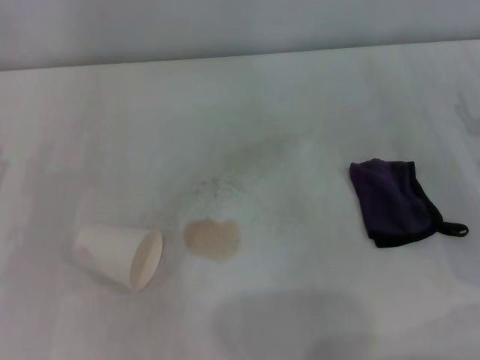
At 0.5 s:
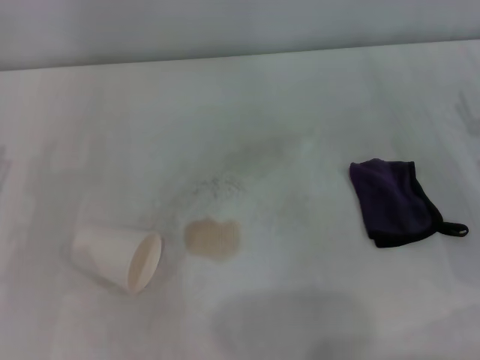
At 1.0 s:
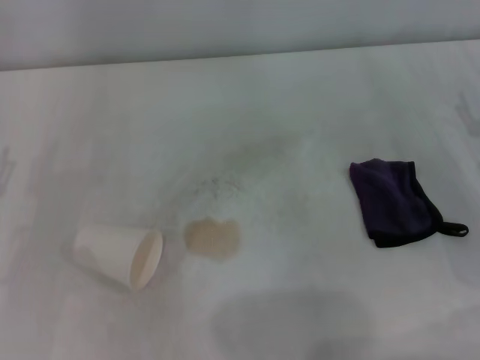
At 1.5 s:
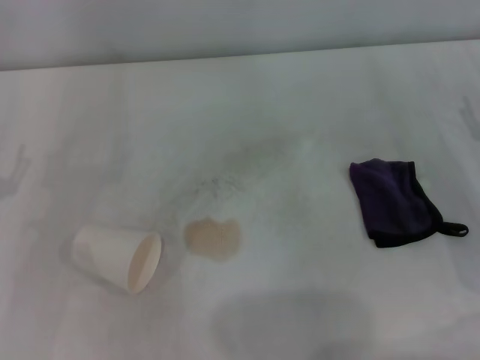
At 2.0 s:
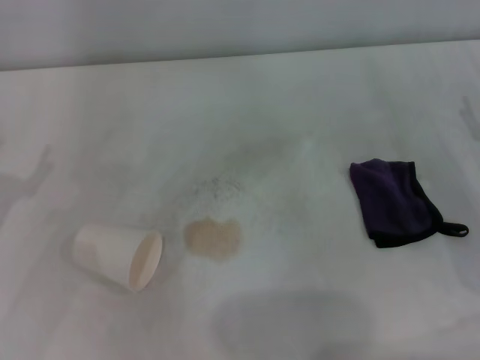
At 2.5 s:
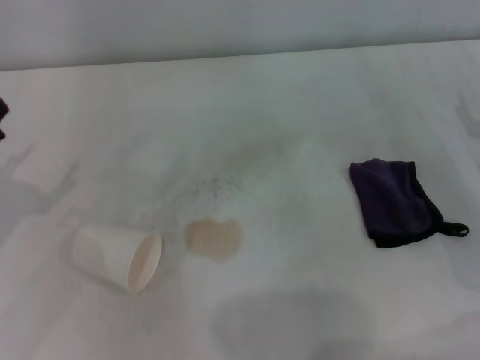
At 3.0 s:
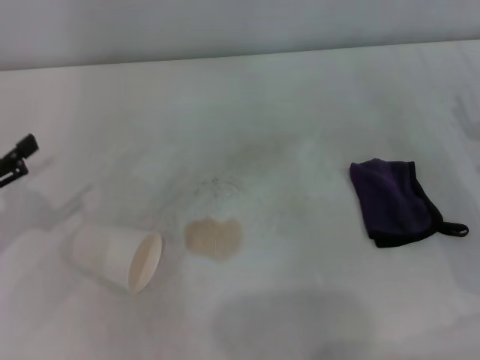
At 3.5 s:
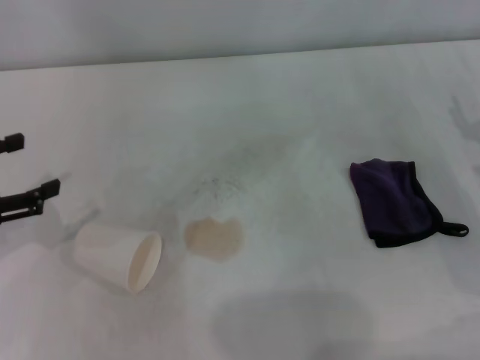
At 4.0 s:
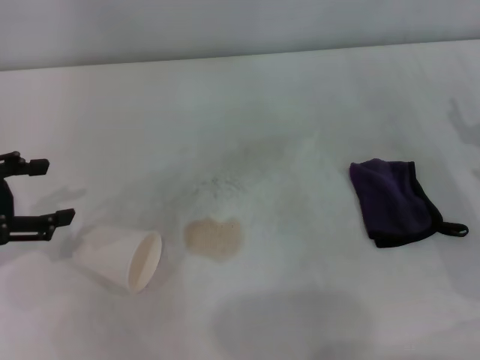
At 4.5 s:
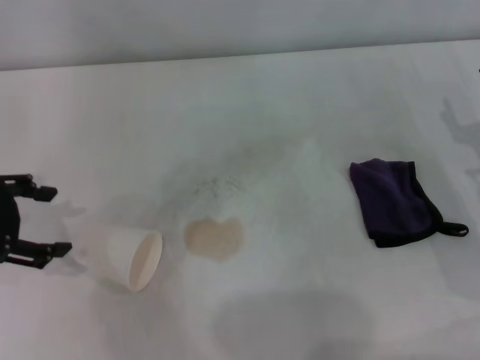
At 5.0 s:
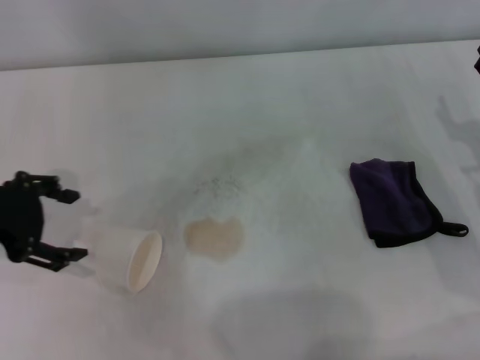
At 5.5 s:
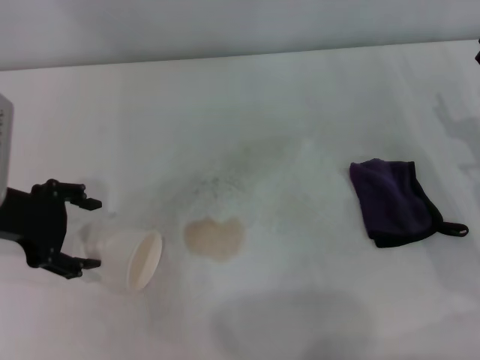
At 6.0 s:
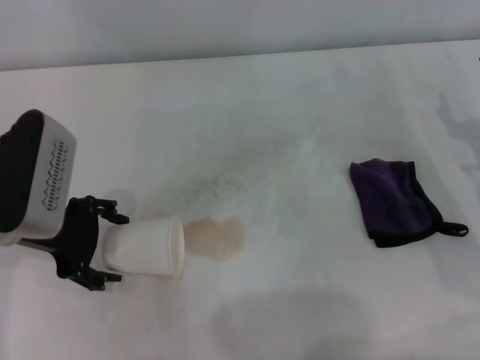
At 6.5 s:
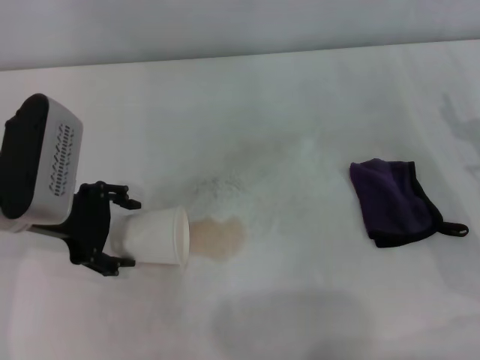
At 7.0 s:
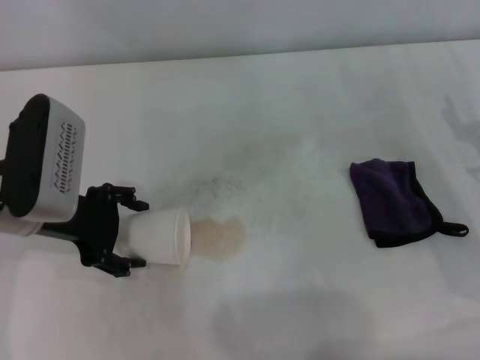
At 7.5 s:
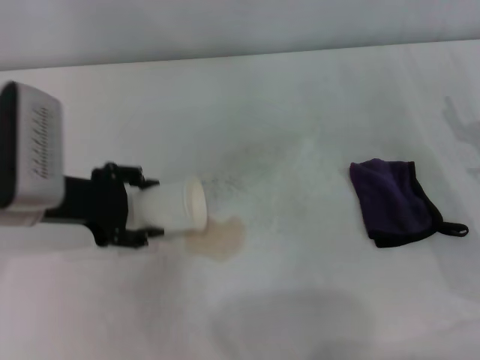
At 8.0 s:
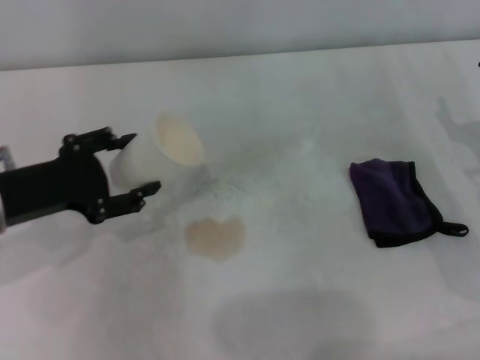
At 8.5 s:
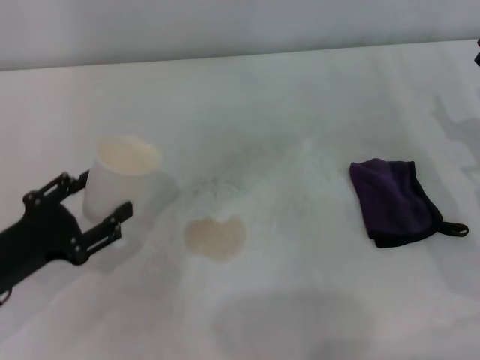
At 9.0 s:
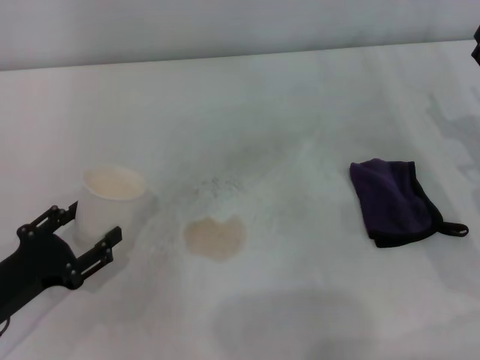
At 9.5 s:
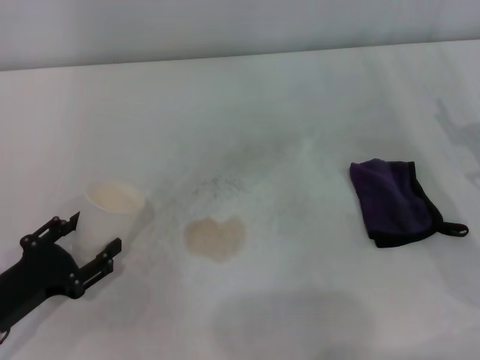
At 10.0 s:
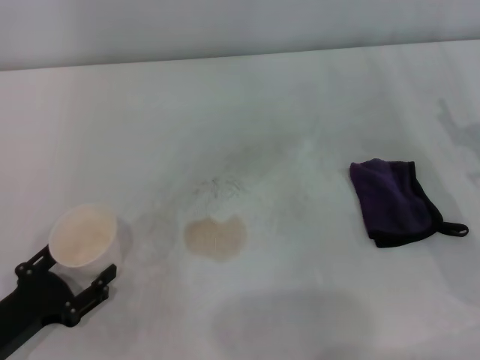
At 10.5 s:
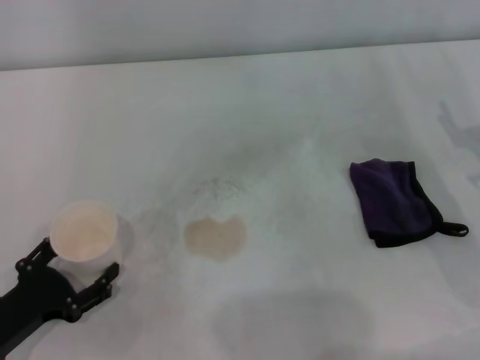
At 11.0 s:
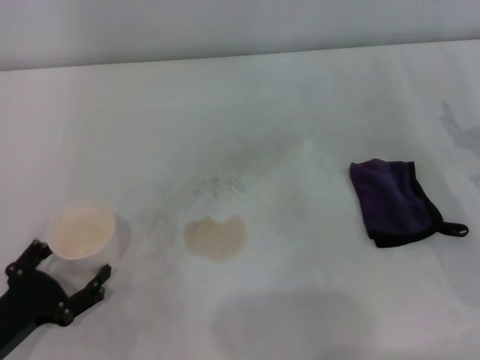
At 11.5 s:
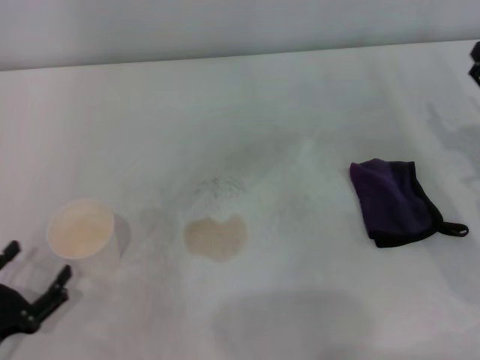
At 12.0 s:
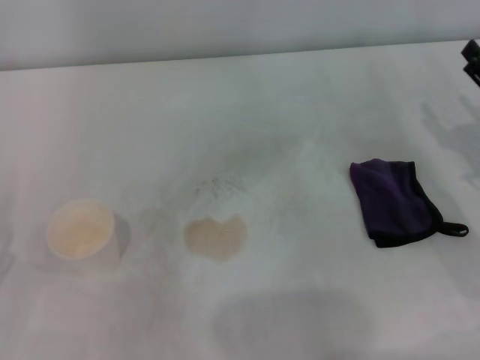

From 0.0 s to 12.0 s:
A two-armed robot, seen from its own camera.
Step, from 0.0 s to 6.0 s: Grasp the paper cup with the left gripper.
Step, from 6.5 s to 10.5 s: Stand the paper cup upright with the left gripper.
From 2.0 s to 4.0 s: The left gripper shifts about 5 cm upward.
From 4.0 s to 6.0 s: The left gripper moves to the right, some 10 cm.
From 6.0 s to 8.0 s: The left gripper closes its fingers.
From 8.0 s to 10.0 s: The left gripper travels downward and backward by roughly 15 cm.
From 10.0 s to 12.0 s: The left gripper changes place by about 5 cm, and opens up.

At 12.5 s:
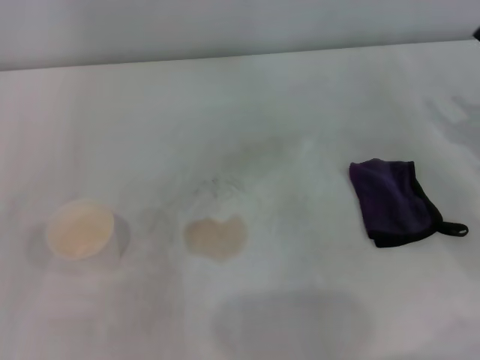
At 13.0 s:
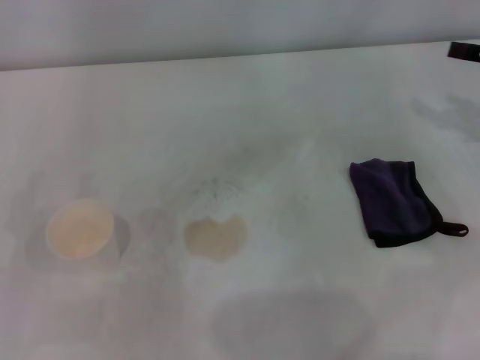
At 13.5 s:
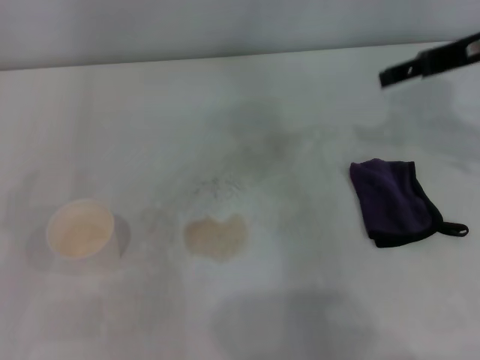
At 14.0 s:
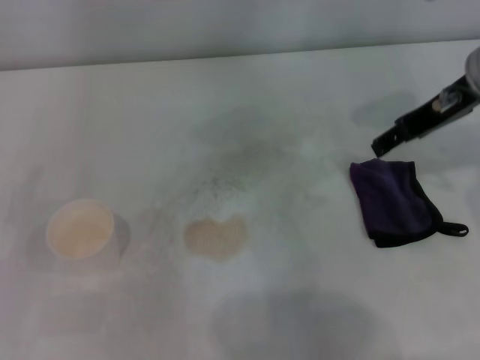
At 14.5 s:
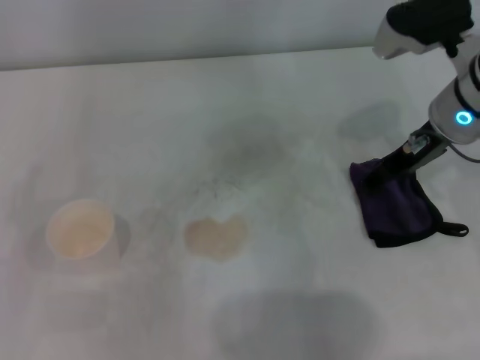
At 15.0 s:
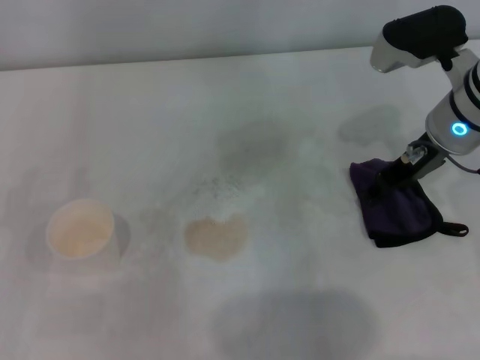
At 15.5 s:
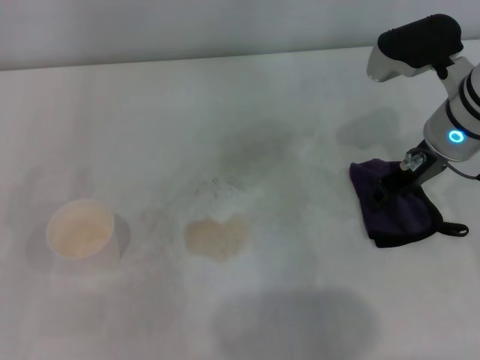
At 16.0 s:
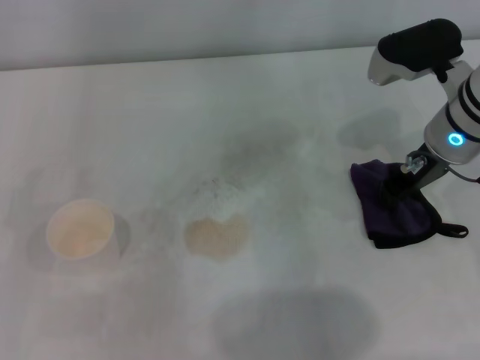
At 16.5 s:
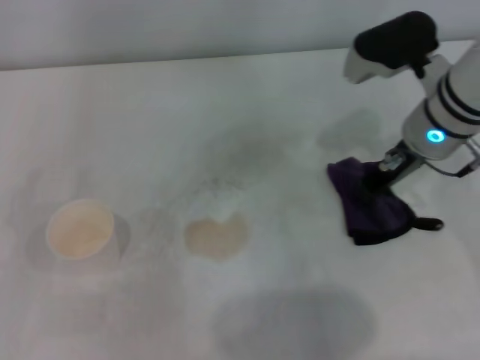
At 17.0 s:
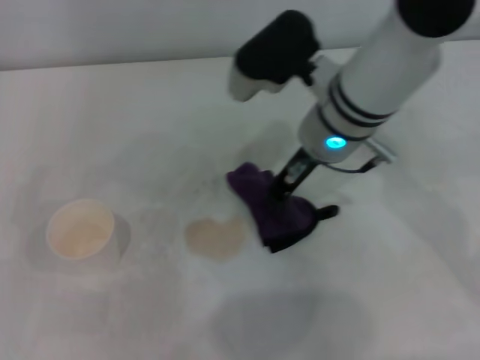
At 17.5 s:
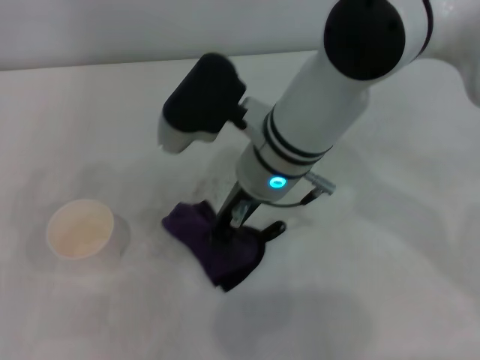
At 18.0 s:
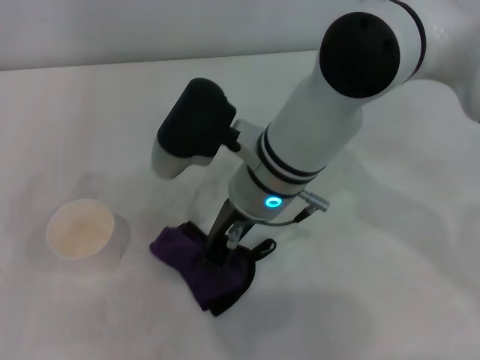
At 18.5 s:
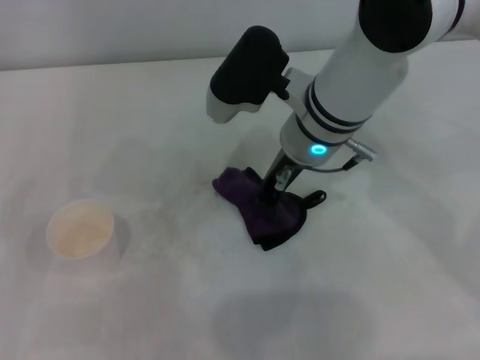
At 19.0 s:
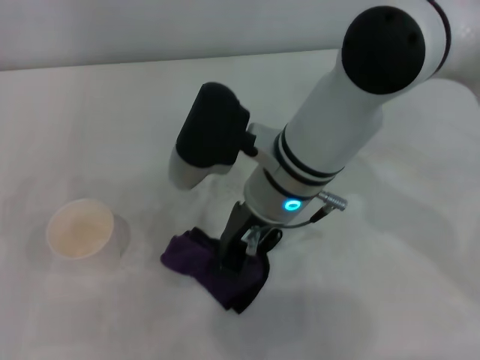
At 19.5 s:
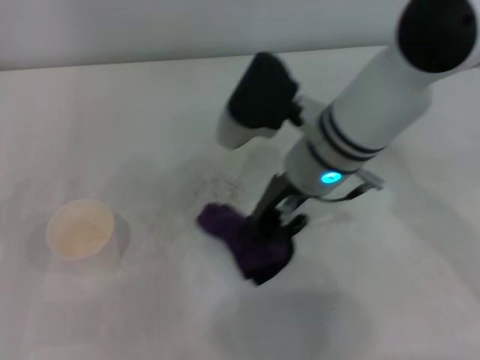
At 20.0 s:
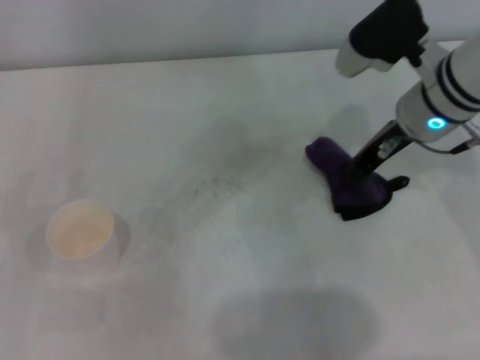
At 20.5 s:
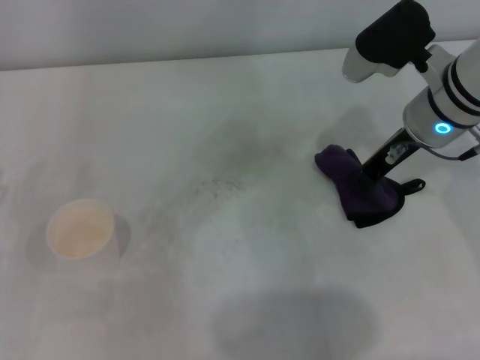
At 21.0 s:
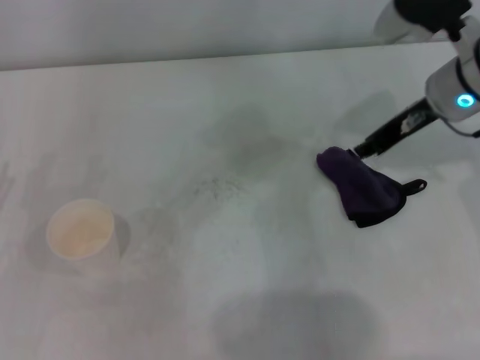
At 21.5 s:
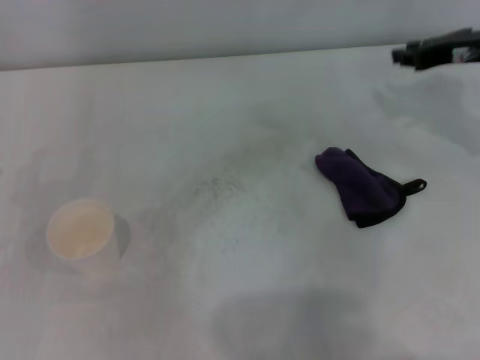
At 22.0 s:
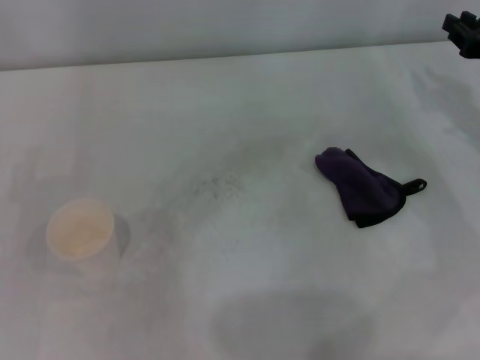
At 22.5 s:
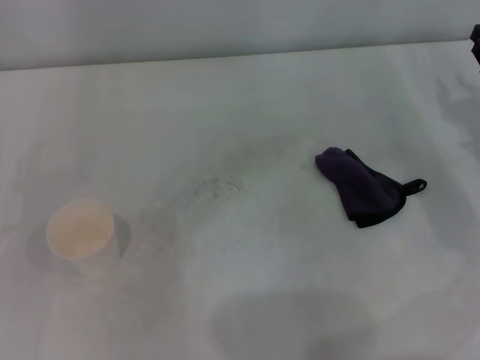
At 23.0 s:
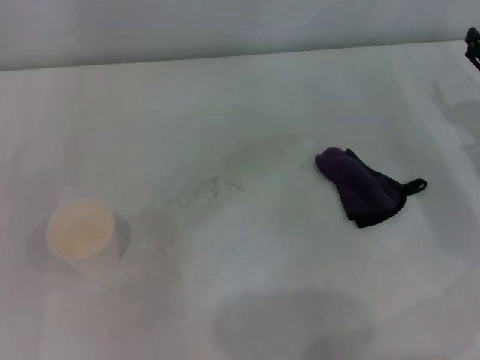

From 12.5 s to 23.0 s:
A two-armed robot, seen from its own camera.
Step, from 12.5 s to 16.0 s: Grasp the rag with the right gripper.
Step, from 16.5 s to 19.5 s: Wipe the stains off the table with the right gripper.
Step, from 20.0 s to 20.5 s: Place the rag on the table with the right gripper.
From 12.5 s to 14.5 s: The right gripper heads to the left, forward and upward, covering about 20 cm.
From 14.5 s to 16.5 s: The right gripper closes up.
From 16.5 s to 19.0 s: The right gripper heads to the left, covering roughly 15 cm.
From 19.0 s to 21.0 s: The right gripper heads to the right, covering some 20 cm.
From 21.0 s to 23.0 s: The right gripper shifts roughly 15 cm to the right, downward and backward, and opens up.

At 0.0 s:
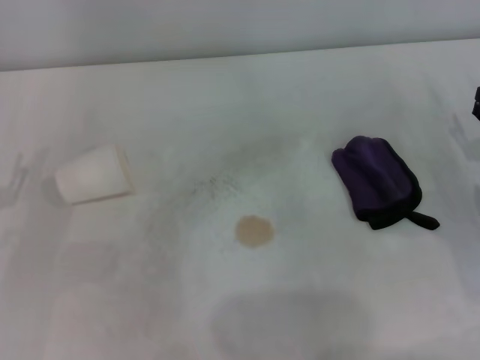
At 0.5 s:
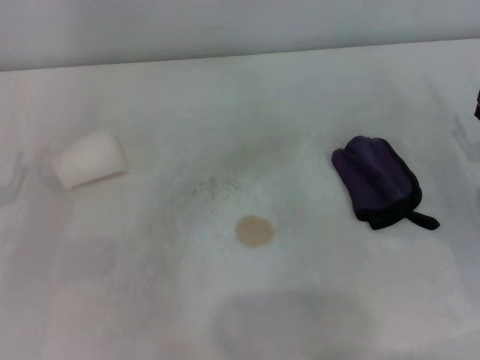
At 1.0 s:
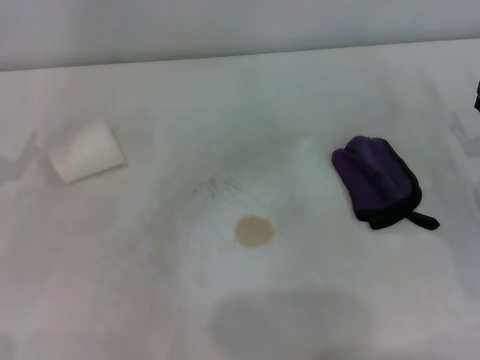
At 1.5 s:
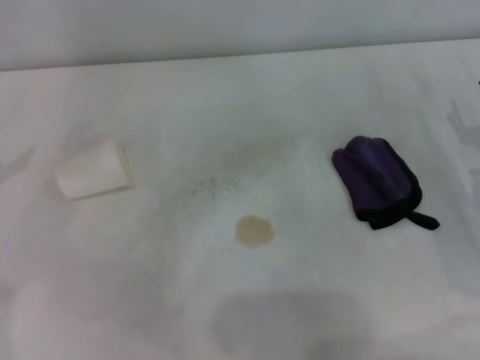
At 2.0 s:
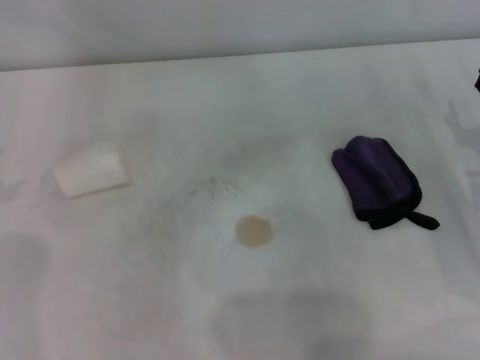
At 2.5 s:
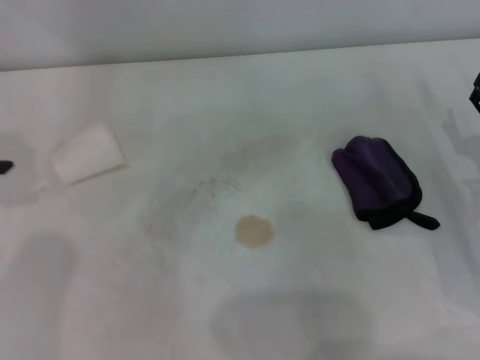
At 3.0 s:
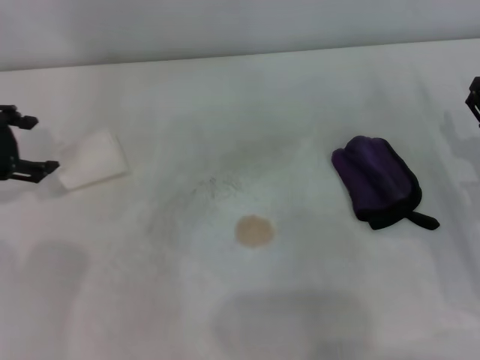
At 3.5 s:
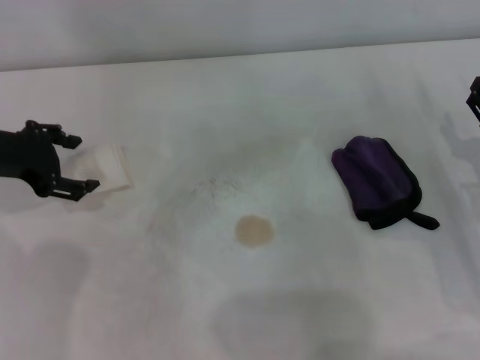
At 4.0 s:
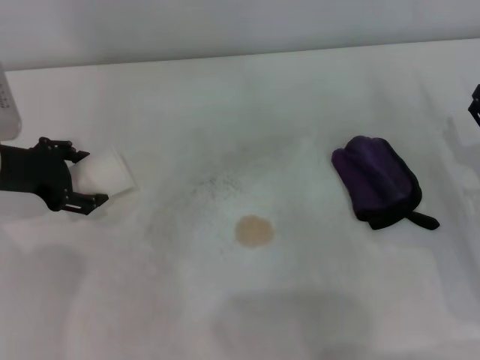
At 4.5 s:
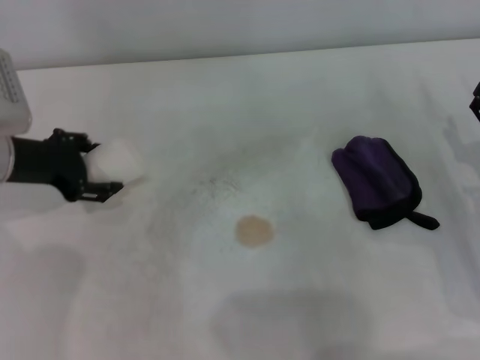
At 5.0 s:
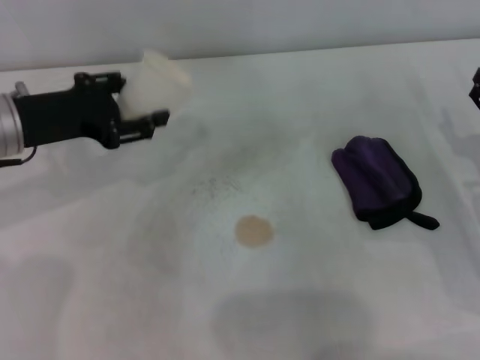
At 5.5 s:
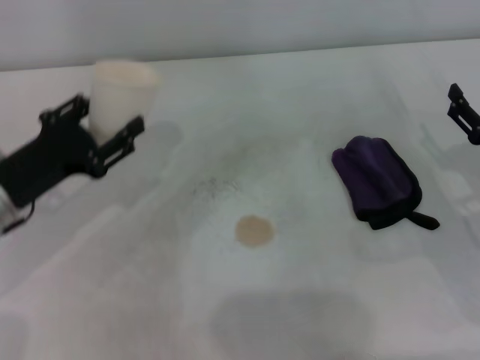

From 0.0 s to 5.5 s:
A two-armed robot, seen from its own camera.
Step, from 0.0 s to 4.0 s: Grasp the paper cup with the left gripper.
From 2.0 s to 3.5 s: The left gripper goes approximately 15 cm to the right and downward.
From 3.5 s to 5.5 s: The left gripper travels backward and downward by approximately 10 cm, and closes its fingers.
